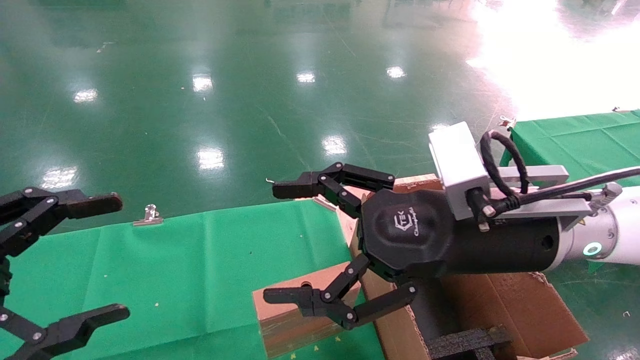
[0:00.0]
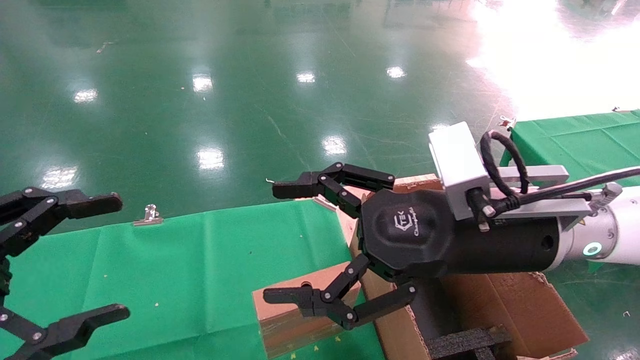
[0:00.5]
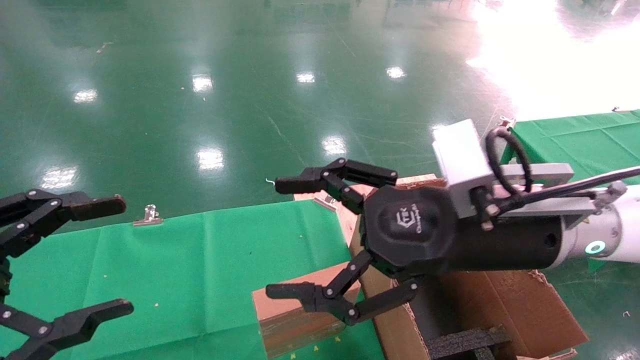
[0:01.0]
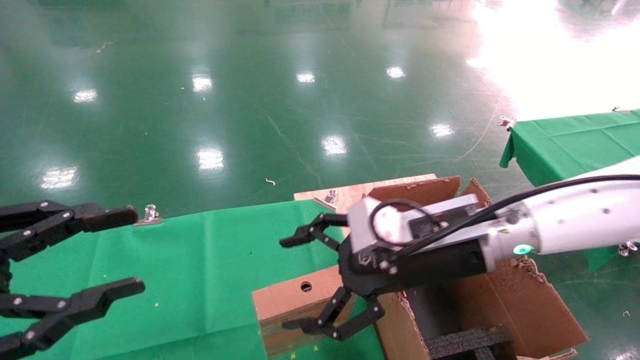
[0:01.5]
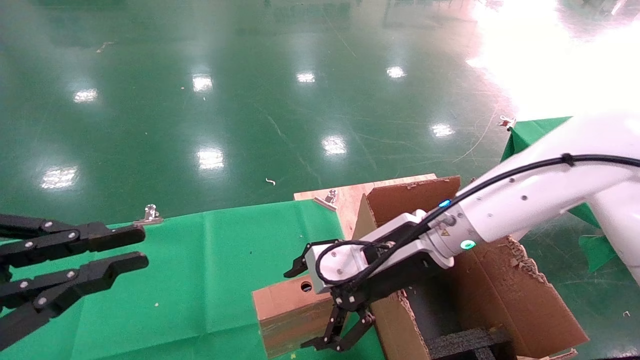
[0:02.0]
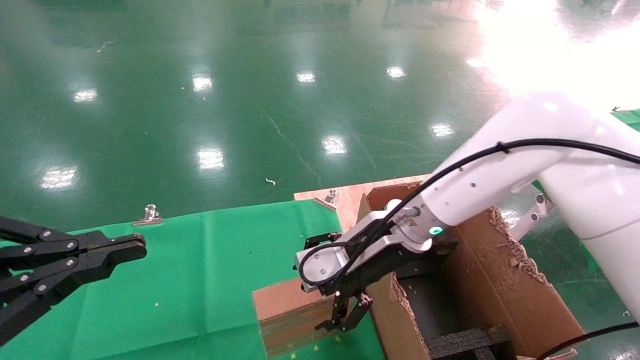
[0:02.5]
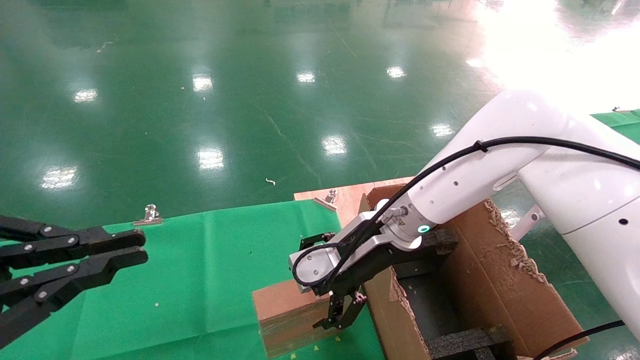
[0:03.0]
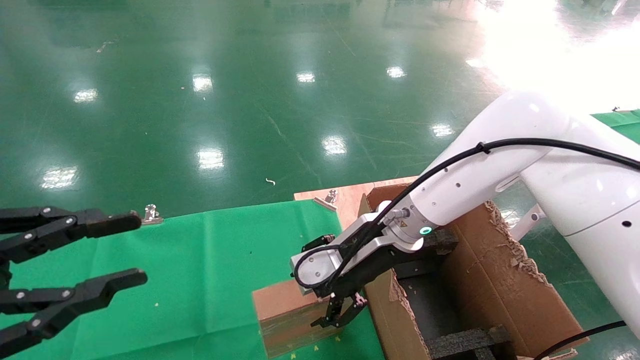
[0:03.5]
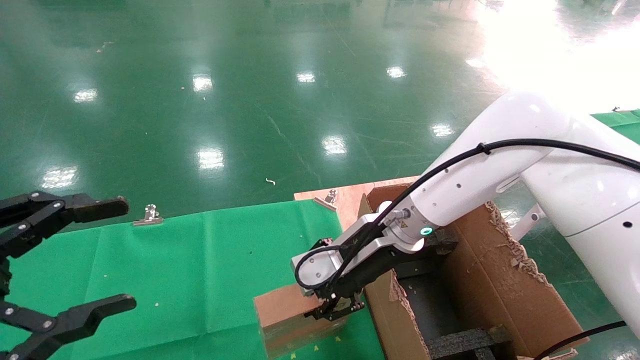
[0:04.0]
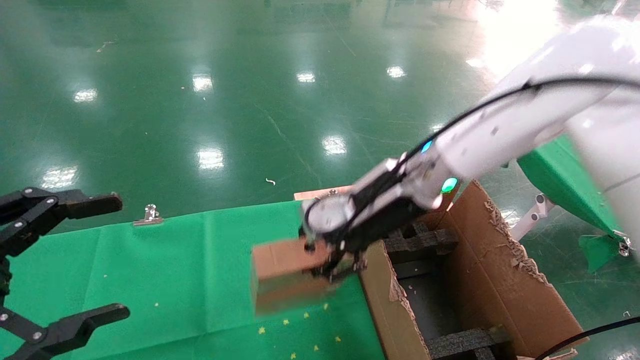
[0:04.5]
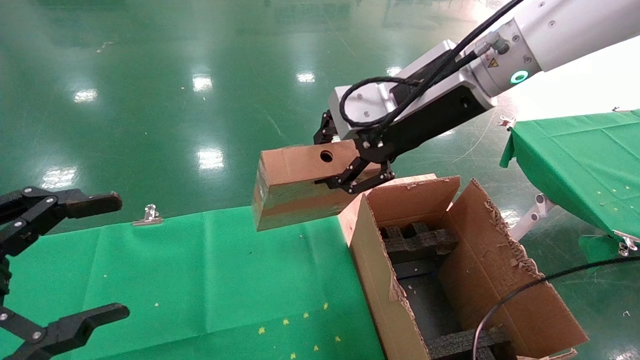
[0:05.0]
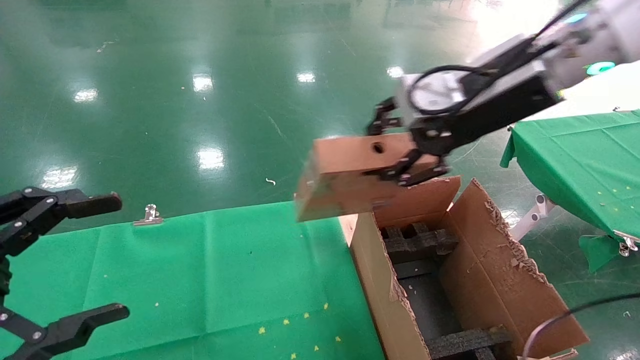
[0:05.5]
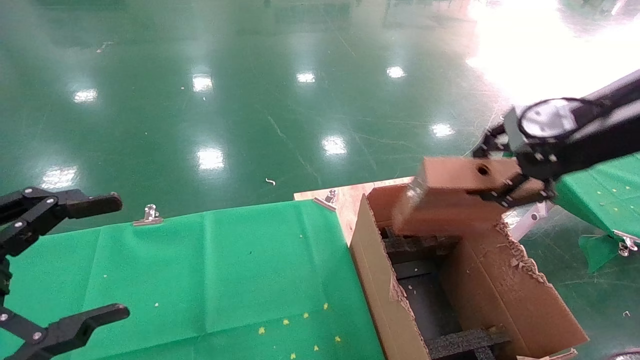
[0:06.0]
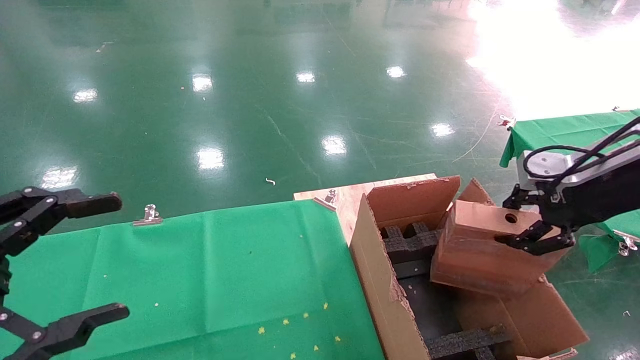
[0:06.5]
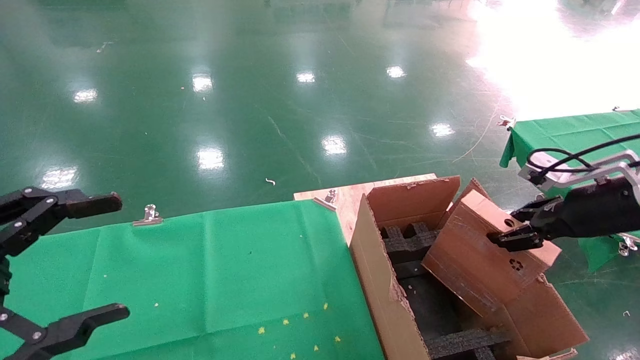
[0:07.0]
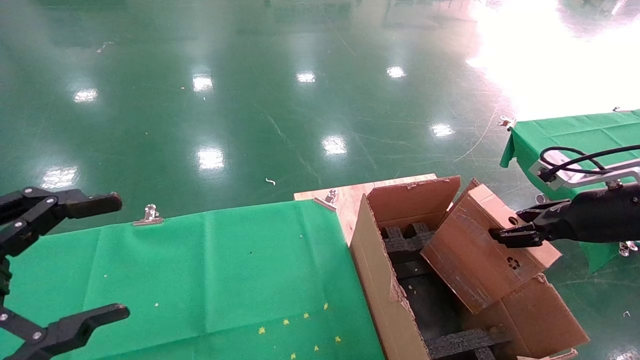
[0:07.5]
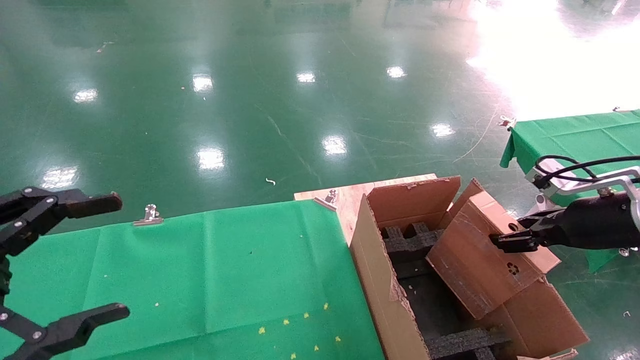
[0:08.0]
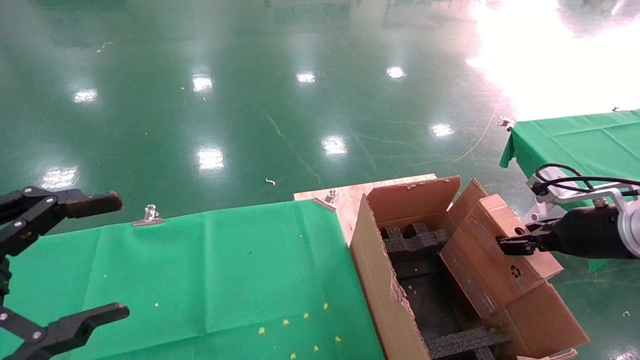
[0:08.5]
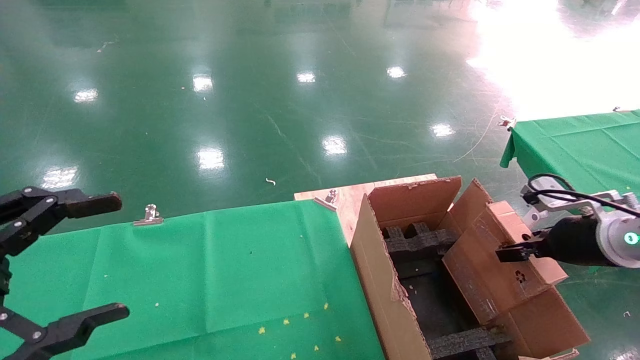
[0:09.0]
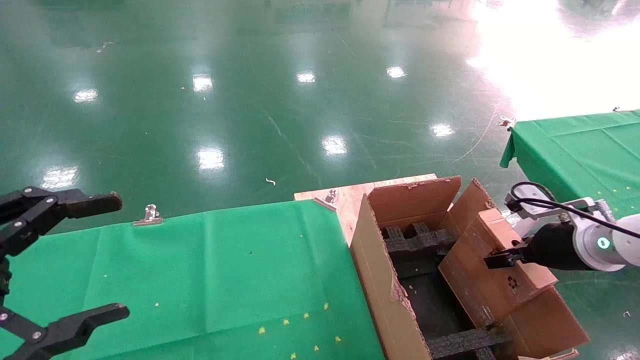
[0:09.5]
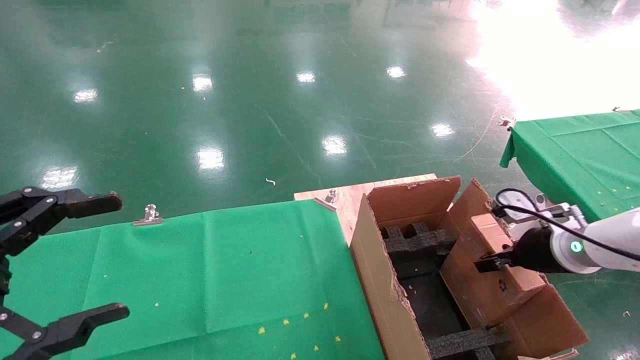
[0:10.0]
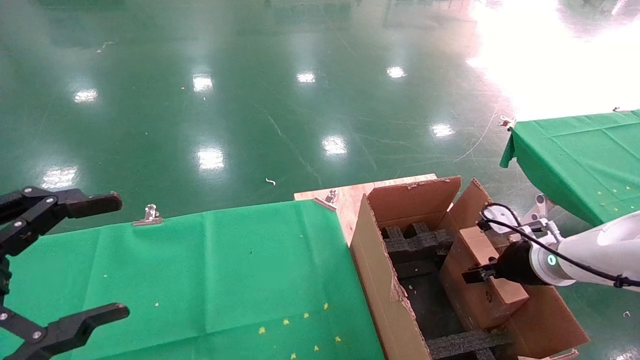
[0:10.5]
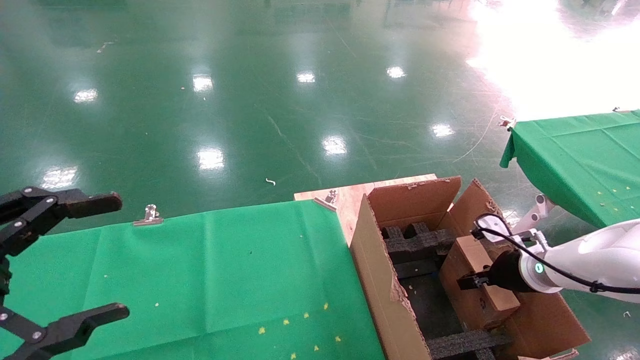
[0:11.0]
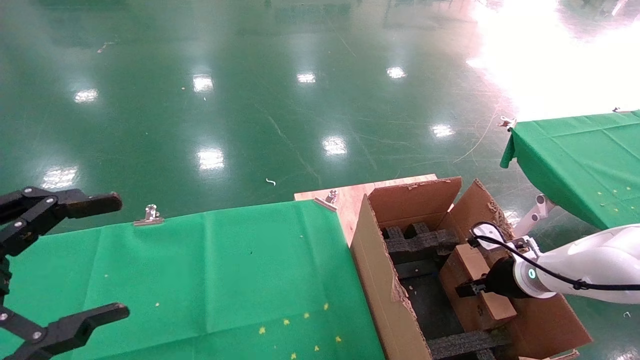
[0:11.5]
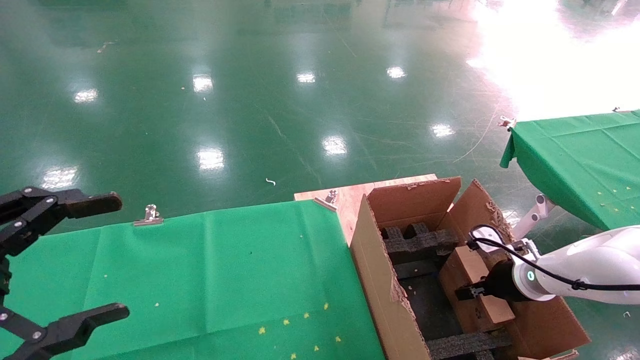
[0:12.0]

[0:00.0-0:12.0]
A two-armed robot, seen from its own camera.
Task of the whole recording: using a robotic arm to pick up a cardboard box and palace it the carton.
Step, 0:01.5 to 0:04.0: Pick up the mouse and the power cord paper box.
0:00.0 to 0:02.0: The right gripper goes roughly 10 cm forward and downward, while the left gripper closes up.
0:02.0 to 0:04.0: The right gripper closes up. The left gripper opens its fingers.
0:04.0 to 0:06.0: The right gripper moves to the right and upward, approximately 30 cm.
0:06.0 to 0:08.0: The right gripper travels downward and to the right by some 15 cm.
0:08.0 to 0:10.0: The right gripper travels downward by some 5 cm.
0:10.0 to 0:12.0: The right gripper shifts approximately 10 cm downward.

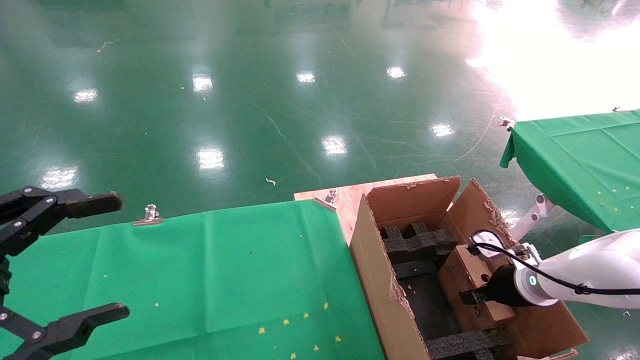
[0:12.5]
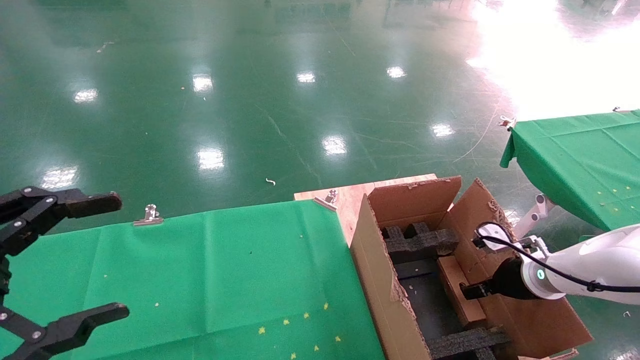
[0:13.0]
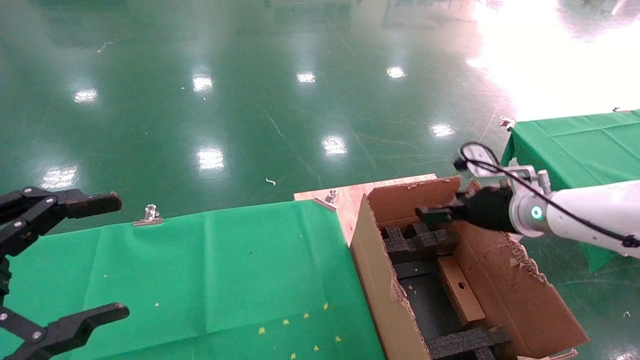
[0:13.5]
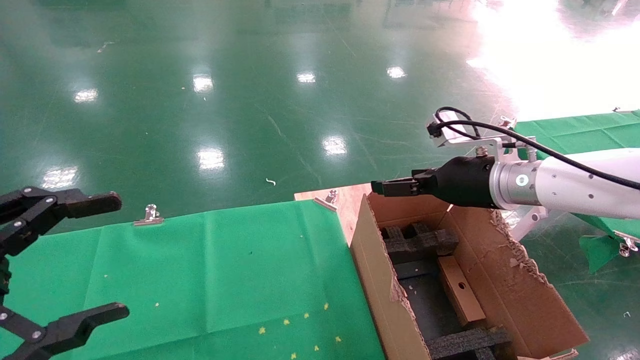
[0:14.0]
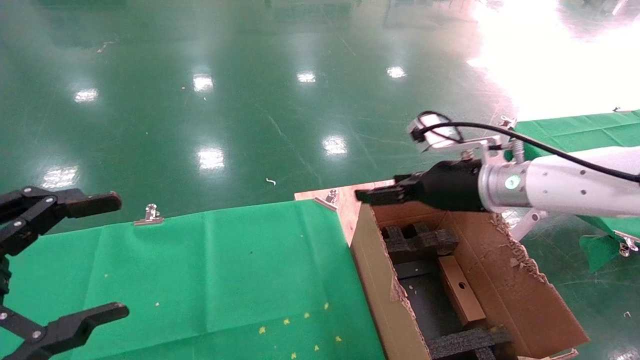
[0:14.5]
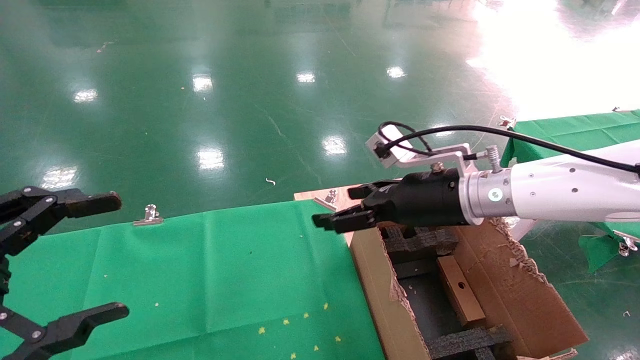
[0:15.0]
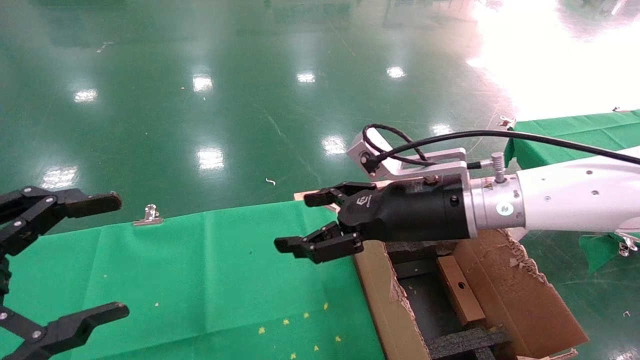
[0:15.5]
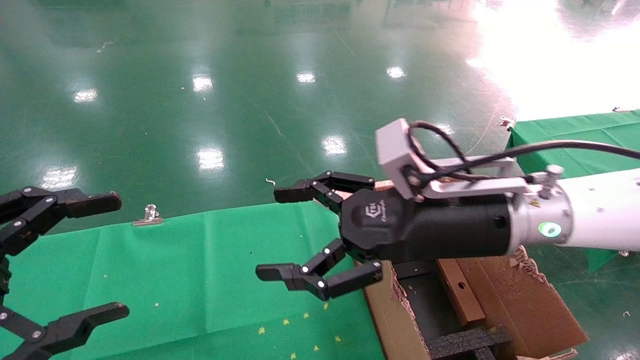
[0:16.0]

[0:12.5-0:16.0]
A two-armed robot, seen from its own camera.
Task of the whole recording: using a robotic arm to pick up a cardboard box and palace it the carton.
0:12.5 to 0:14.5: The right gripper shifts approximately 20 cm upward and to the left, and opens its fingers.
0:14.5 to 0:16.0: The right gripper moves backward and to the left, approximately 10 cm.

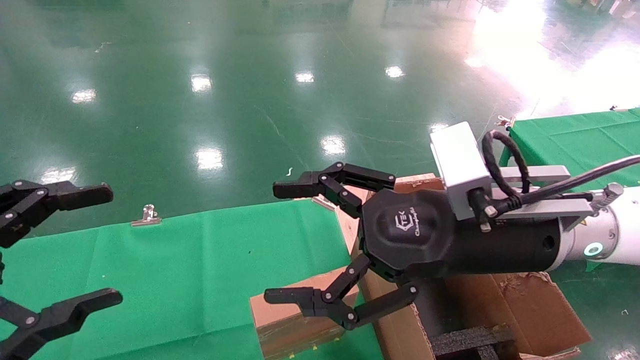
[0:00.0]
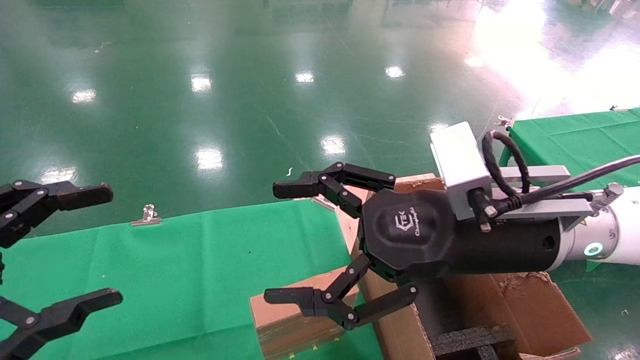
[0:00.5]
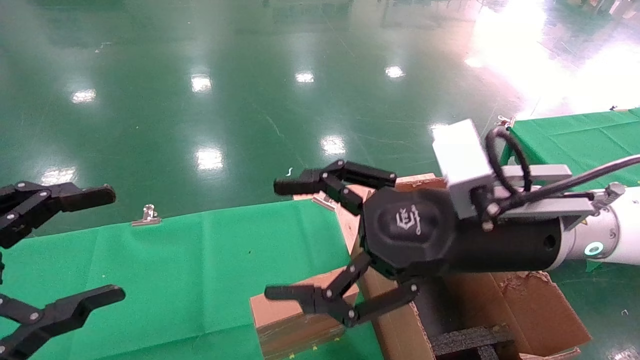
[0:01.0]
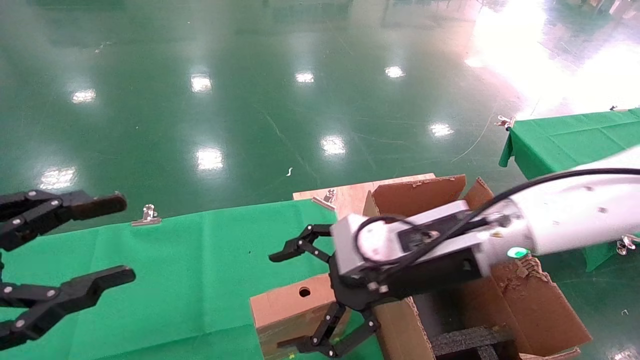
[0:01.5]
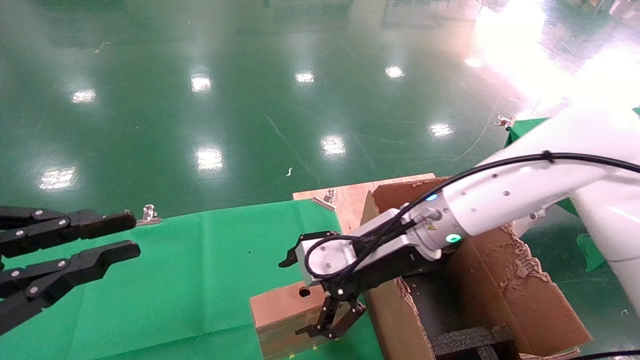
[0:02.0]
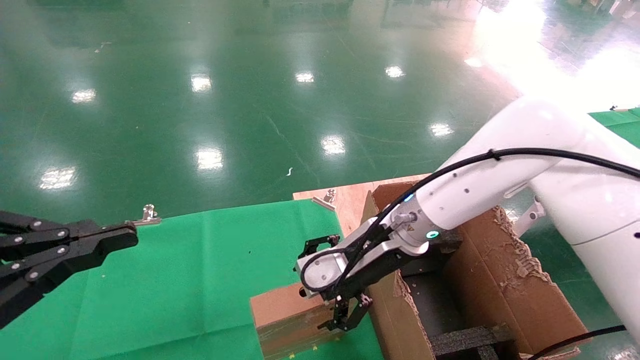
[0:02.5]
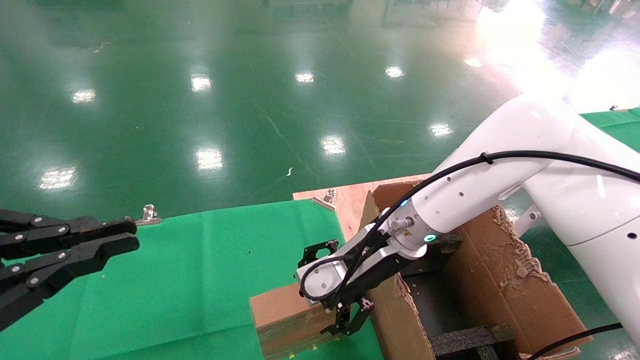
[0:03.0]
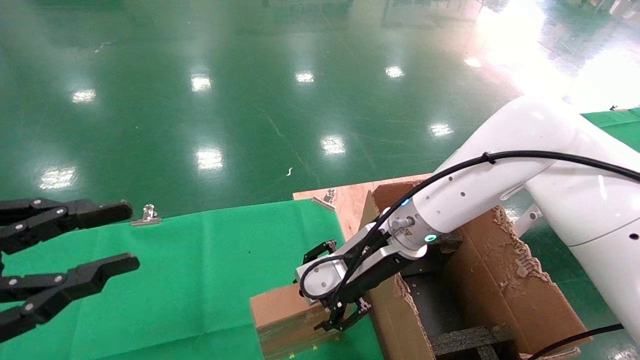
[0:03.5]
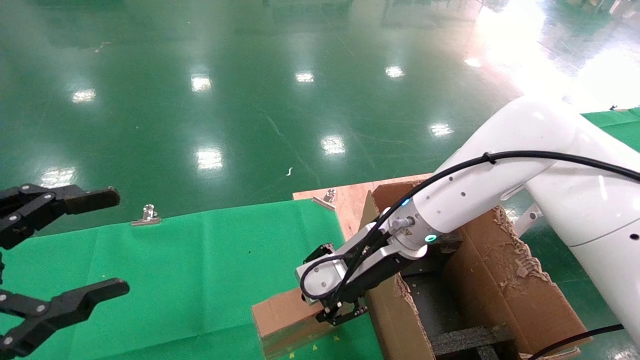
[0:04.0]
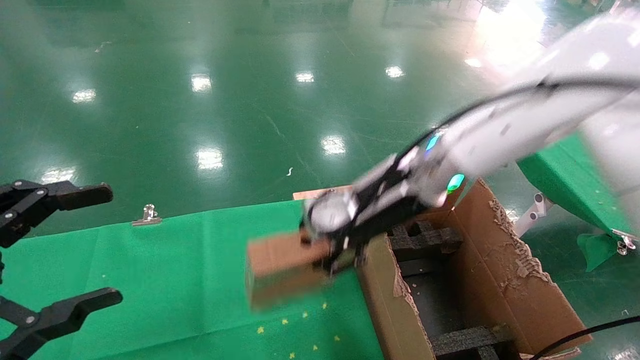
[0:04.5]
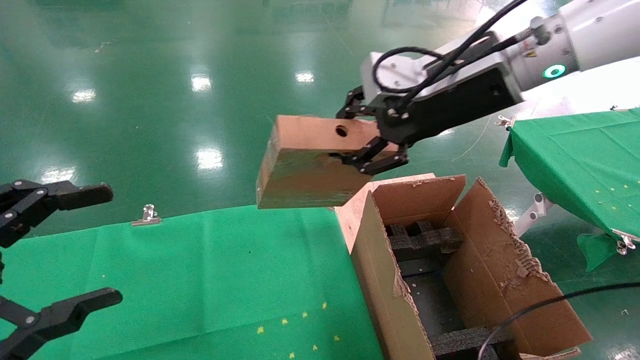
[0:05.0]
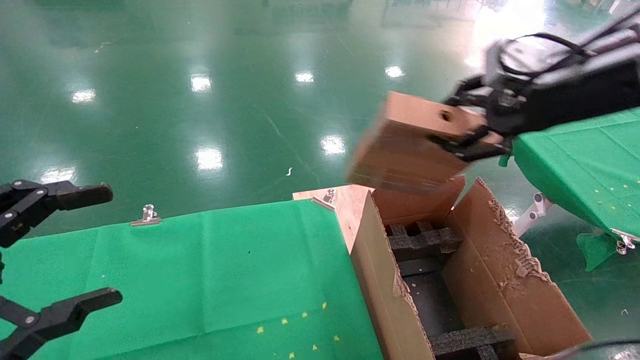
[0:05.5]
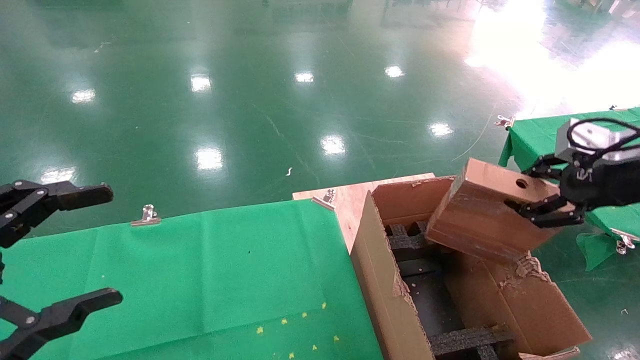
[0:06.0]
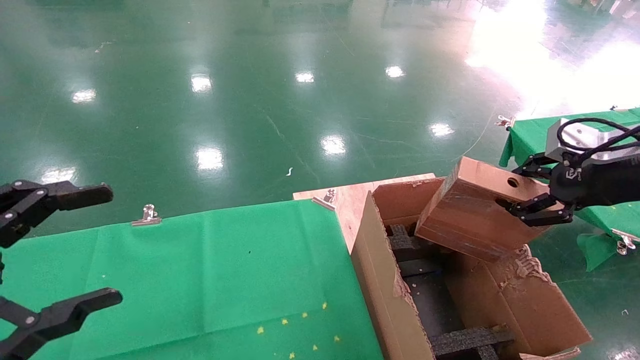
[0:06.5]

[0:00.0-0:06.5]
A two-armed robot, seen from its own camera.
Task of the whole recording: using a robotic arm to pick up a cardboard box and palace it the carton.
Step, 0:01.5 to 0:04.0: Pick up the mouse and the power cord paper box.
0:00.0 to 0:02.0: The left gripper closes. The right gripper is displaced forward, downward and to the left by about 15 cm.
0:02.0 to 0:04.5: The right gripper shifts approximately 10 cm upward, and closes. Meanwhile the left gripper opens its fingers.
0:04.5 to 0:06.5: The right gripper goes about 30 cm to the right.
